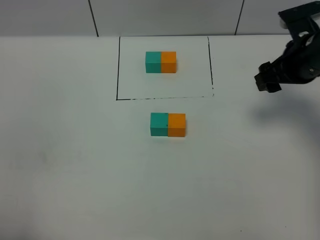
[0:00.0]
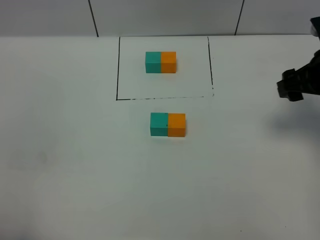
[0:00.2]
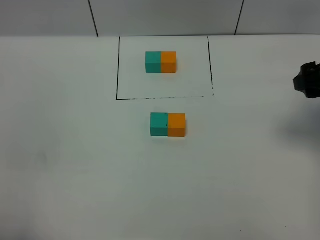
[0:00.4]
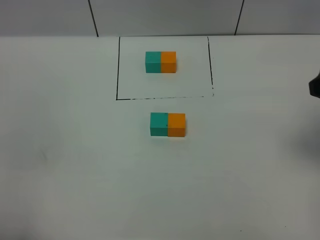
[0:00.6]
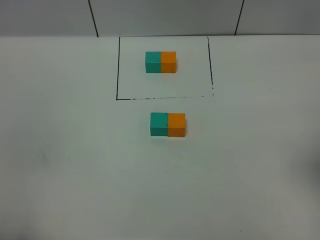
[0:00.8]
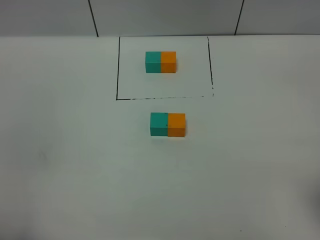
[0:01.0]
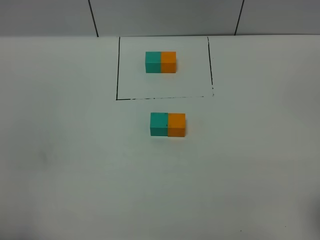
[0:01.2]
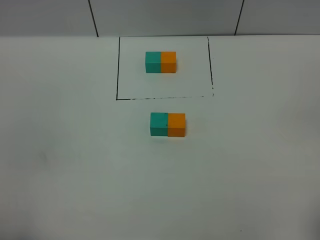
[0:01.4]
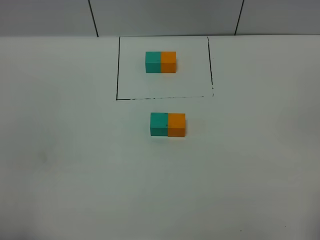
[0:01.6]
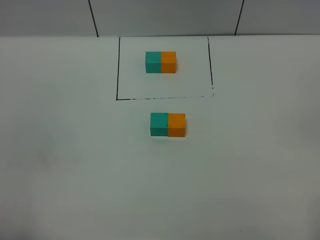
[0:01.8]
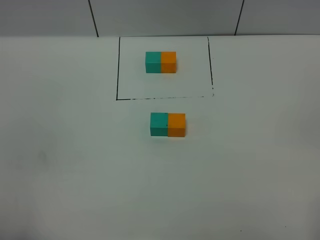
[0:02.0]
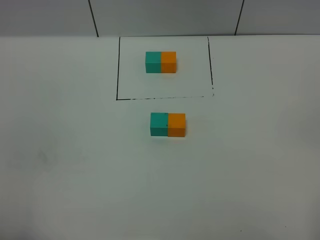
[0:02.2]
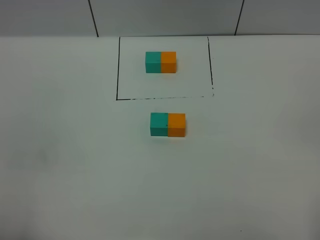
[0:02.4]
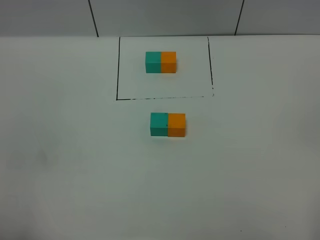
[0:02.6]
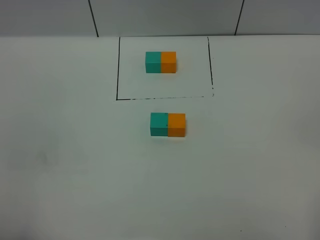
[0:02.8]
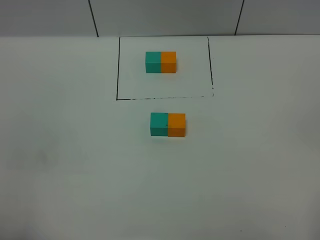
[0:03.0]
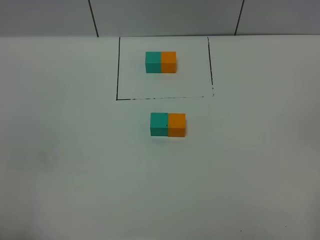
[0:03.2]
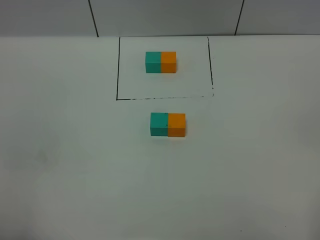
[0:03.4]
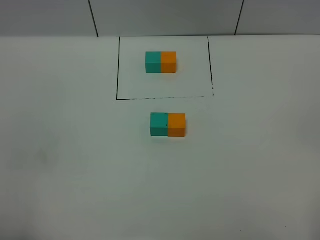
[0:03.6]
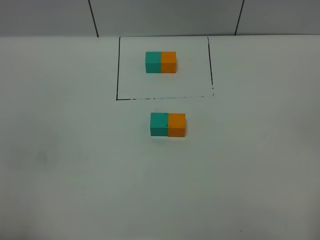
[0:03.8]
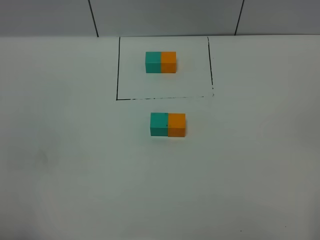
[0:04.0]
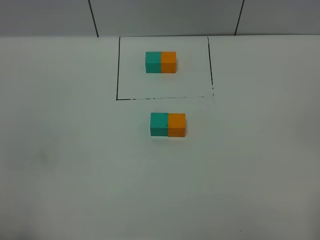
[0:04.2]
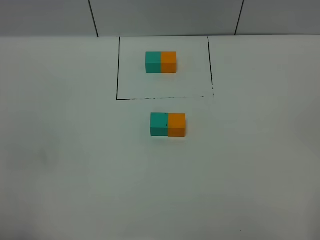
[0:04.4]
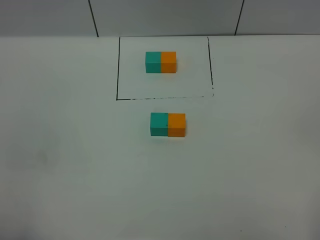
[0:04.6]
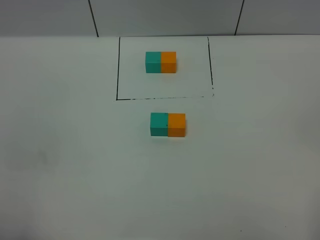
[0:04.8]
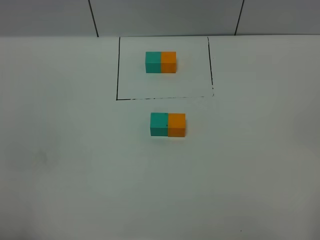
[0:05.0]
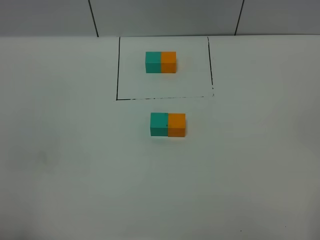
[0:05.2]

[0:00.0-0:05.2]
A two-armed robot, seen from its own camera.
Task of the whole recording: According to the building block template in front, assemble the scattered blocks together.
0:00.0 to 0:01.8: The right gripper shifts approximately 35 cm backward.
0:03.4 to 0:05.2: The two grippers keep their place.

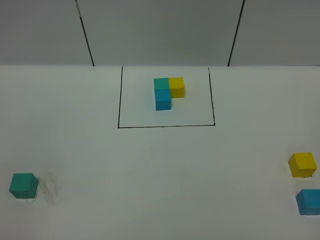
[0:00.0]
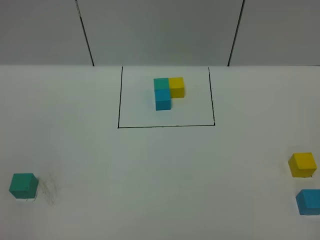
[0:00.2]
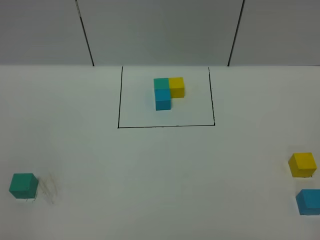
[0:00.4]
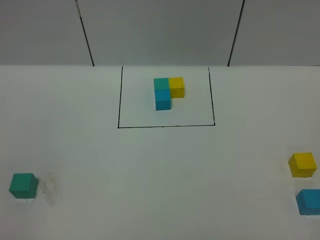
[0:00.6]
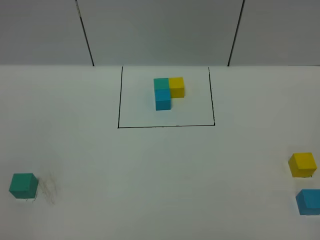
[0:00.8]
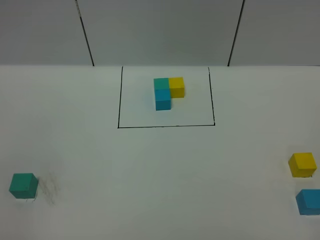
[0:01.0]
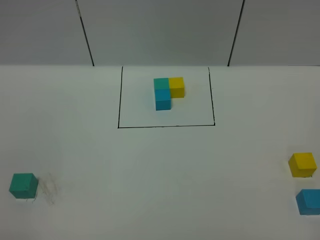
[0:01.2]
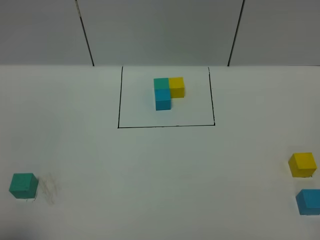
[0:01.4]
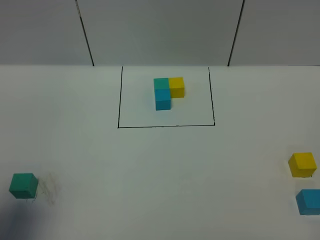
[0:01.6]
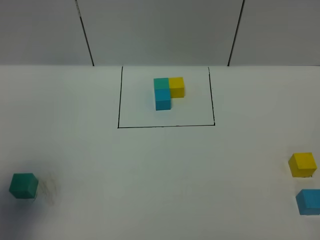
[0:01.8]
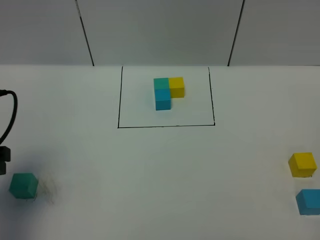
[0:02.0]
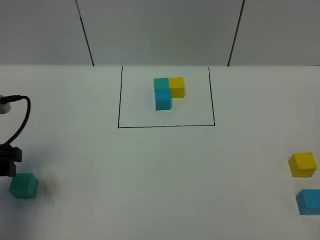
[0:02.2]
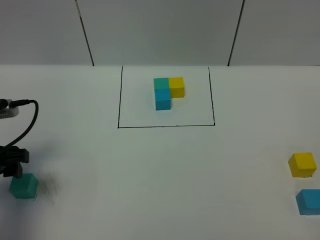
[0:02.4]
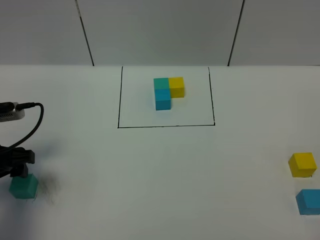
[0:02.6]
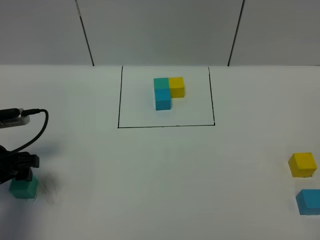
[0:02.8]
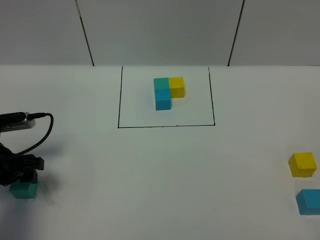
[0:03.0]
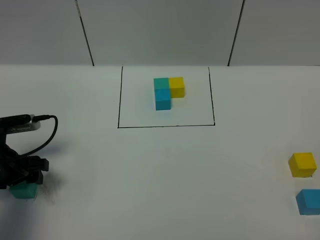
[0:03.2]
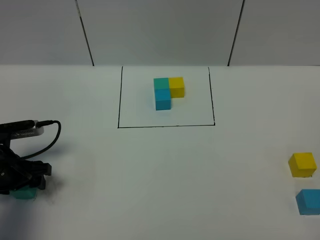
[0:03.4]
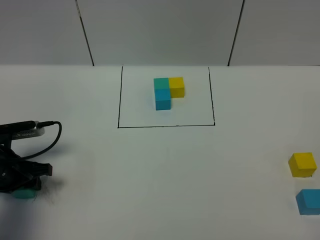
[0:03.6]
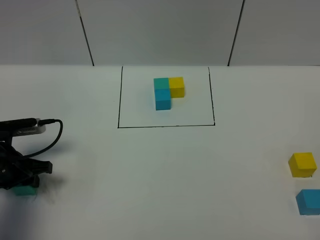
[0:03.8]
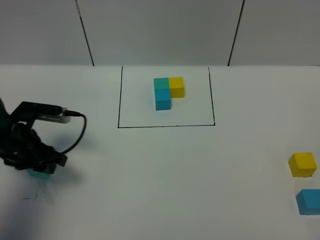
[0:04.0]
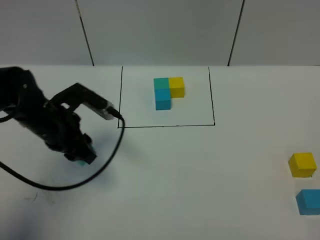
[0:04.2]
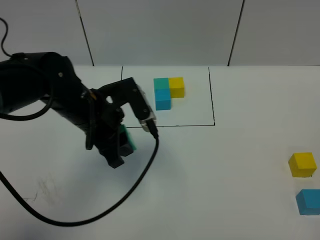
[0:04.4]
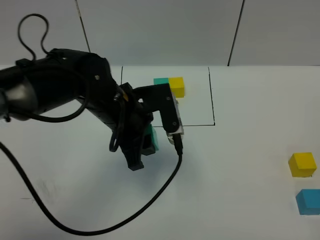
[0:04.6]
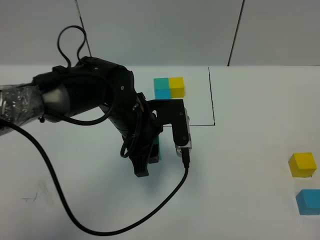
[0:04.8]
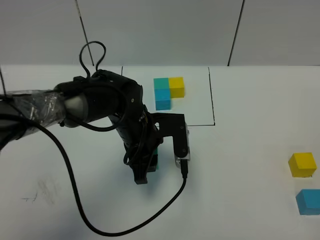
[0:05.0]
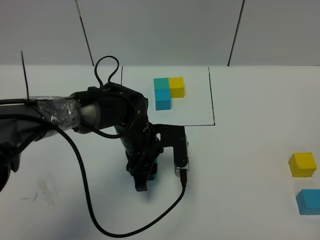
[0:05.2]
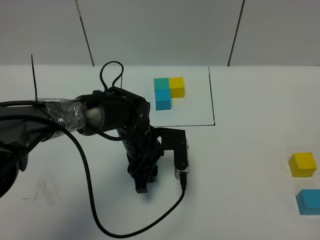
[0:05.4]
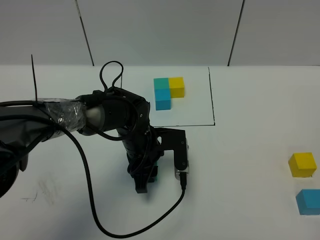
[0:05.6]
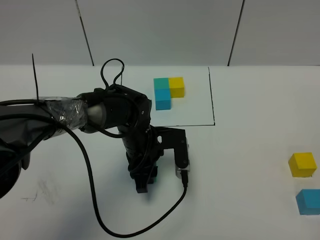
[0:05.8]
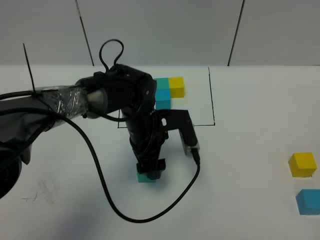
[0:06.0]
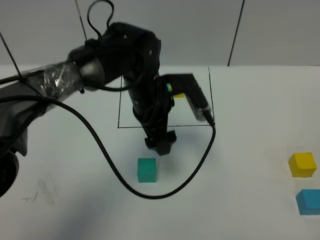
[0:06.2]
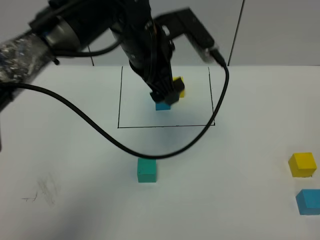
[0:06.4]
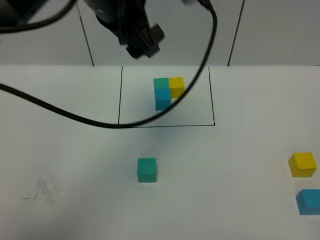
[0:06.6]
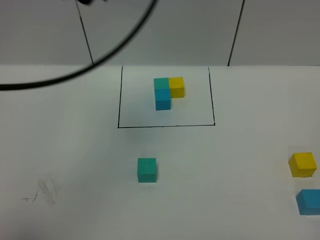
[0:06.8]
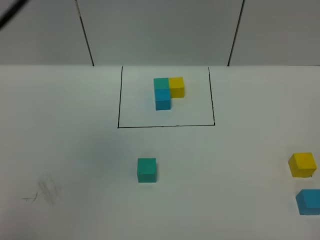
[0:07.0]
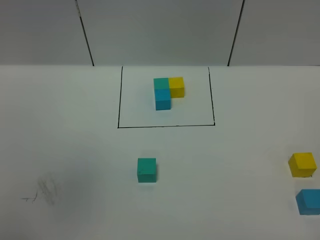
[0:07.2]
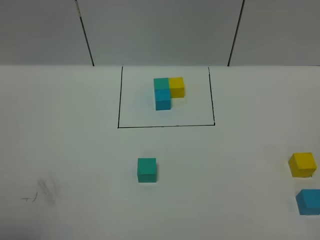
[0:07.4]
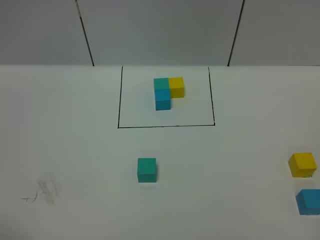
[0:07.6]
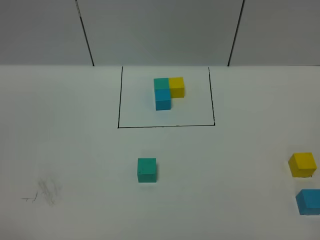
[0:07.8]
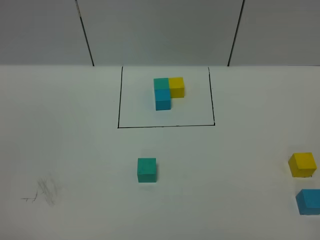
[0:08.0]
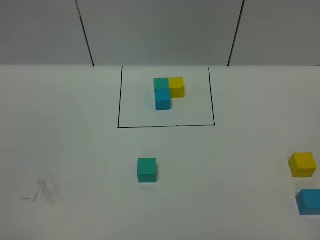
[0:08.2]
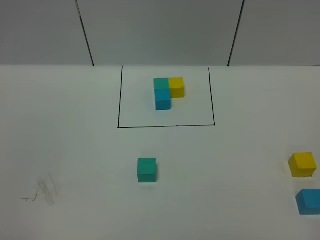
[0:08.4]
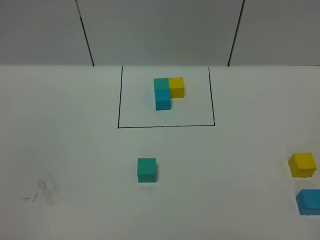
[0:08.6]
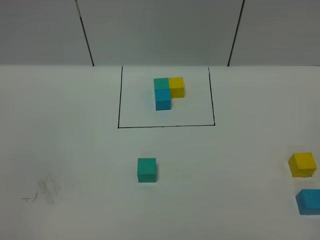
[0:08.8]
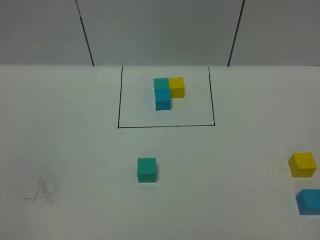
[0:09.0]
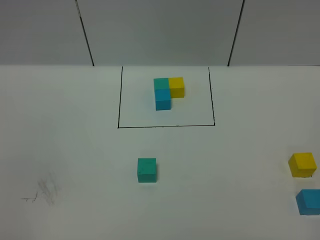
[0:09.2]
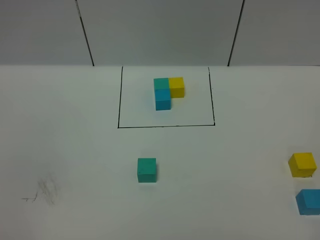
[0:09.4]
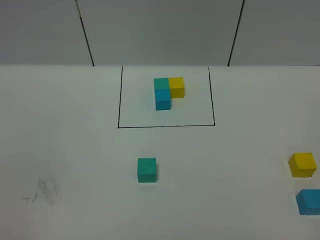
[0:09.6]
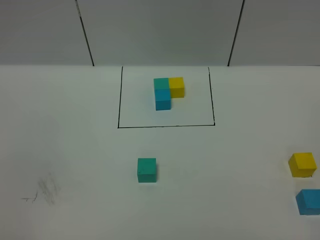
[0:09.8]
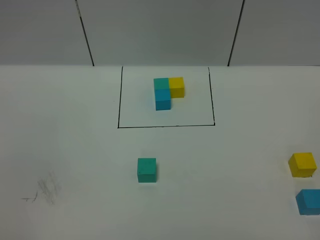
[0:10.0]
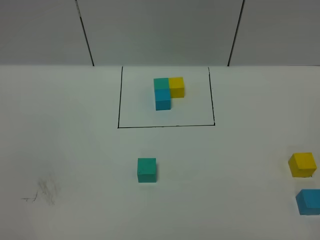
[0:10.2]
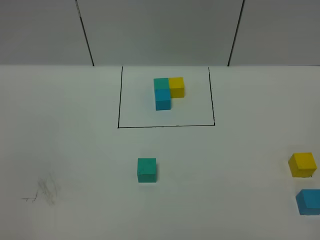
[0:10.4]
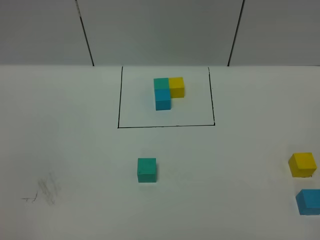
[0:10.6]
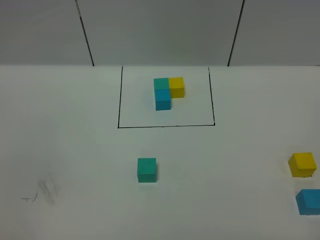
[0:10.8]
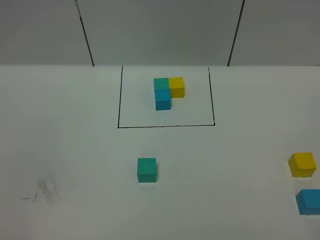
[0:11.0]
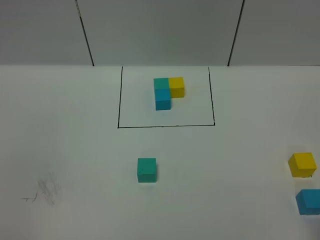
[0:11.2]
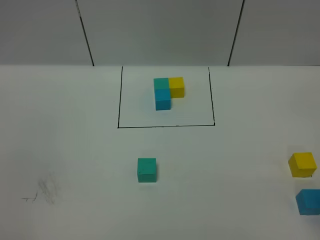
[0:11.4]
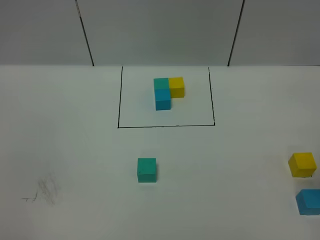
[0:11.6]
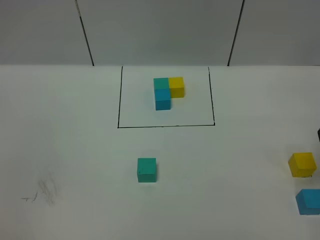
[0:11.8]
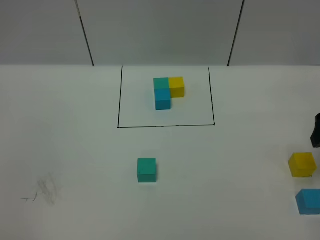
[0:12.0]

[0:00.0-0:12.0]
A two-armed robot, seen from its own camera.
Task of the whole recording: According to the building block template in front, assemble the scattered blocks together.
Step, 0:02.0 to 0:06.4: Put the green cube in the center of the table.
0:00.0 to 0:01.6: The left gripper goes approximately 15 cm forward.
0:01.6 to 0:03.0: The left gripper moves downward and forward, approximately 20 cm.
0:03.0 to 0:04.4: The left gripper shifts approximately 20 cm to the right and upward, and closes.
0:04.4 to 0:06.0: The left gripper travels to the right and downward by roughly 10 cm, and opens up.
0:06.0 to 0:07.6: The left gripper is displaced backward, upward and to the left by about 50 cm.
0:09.0 to 0:10.4: The two grippers keep their place.
0:10.4 to 0:12.0: The right gripper travels forward by approximately 30 cm, and opens its fingers.

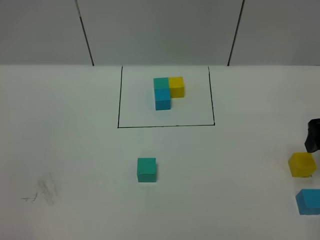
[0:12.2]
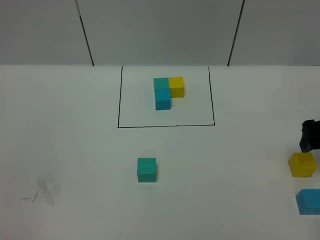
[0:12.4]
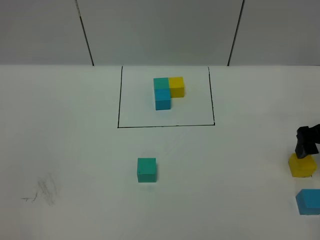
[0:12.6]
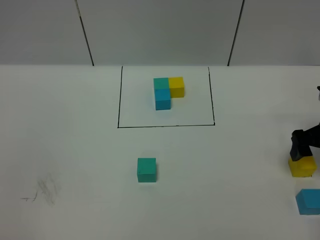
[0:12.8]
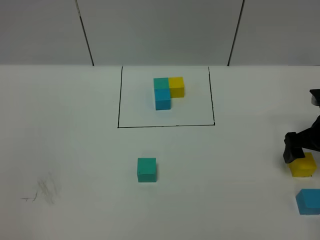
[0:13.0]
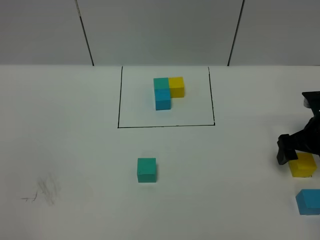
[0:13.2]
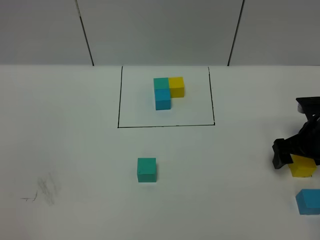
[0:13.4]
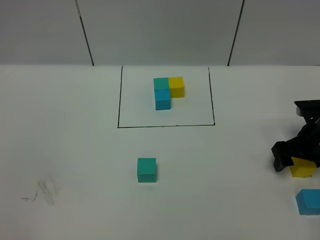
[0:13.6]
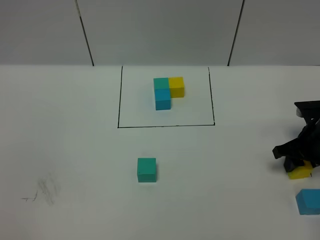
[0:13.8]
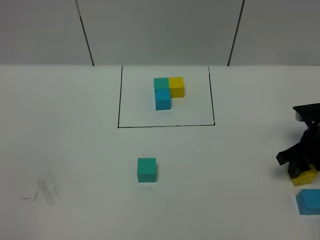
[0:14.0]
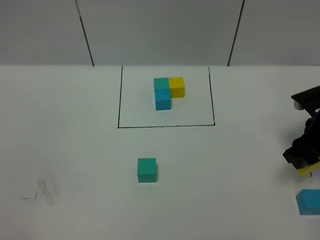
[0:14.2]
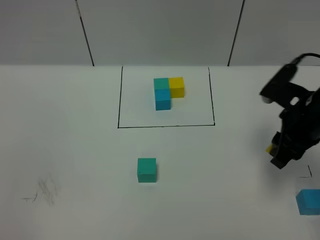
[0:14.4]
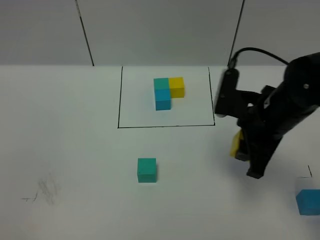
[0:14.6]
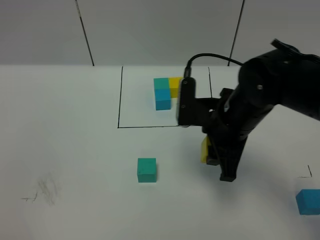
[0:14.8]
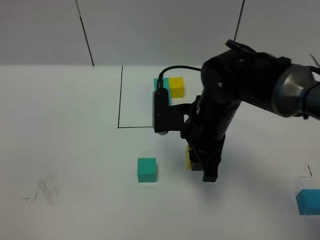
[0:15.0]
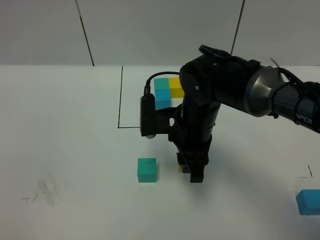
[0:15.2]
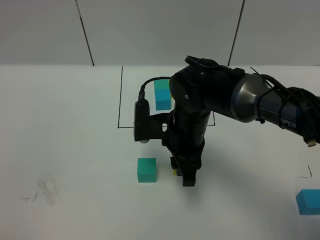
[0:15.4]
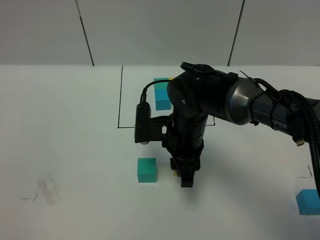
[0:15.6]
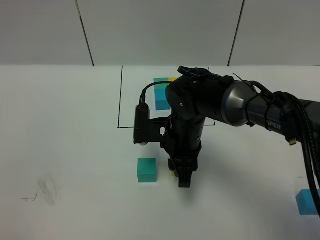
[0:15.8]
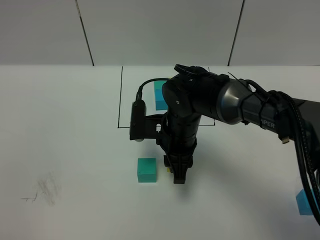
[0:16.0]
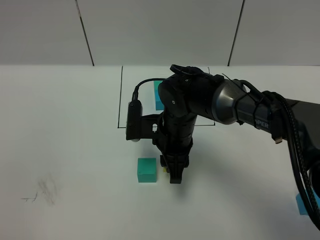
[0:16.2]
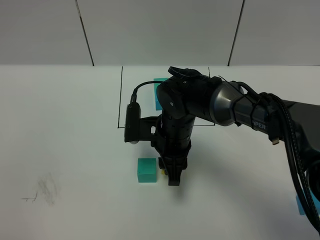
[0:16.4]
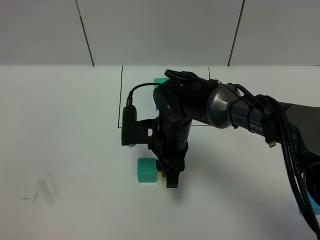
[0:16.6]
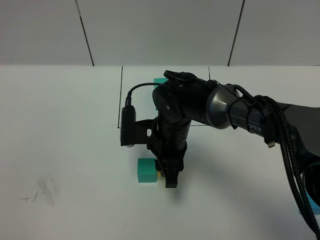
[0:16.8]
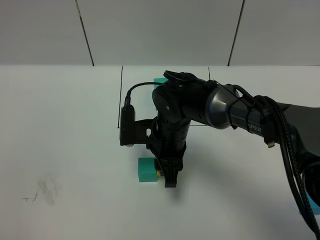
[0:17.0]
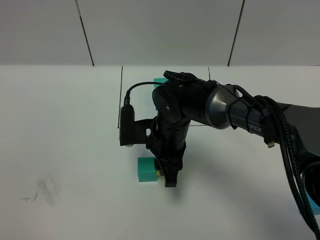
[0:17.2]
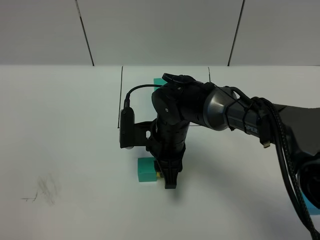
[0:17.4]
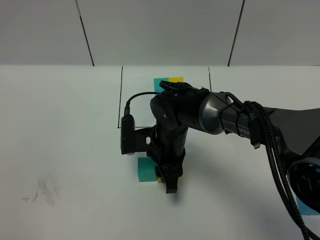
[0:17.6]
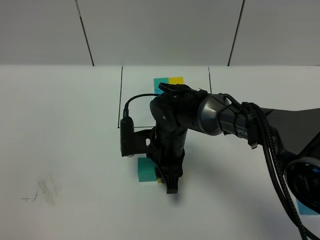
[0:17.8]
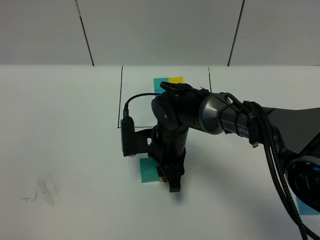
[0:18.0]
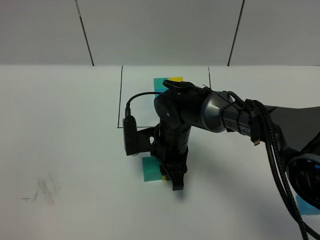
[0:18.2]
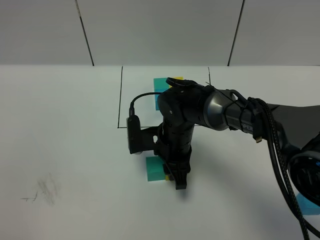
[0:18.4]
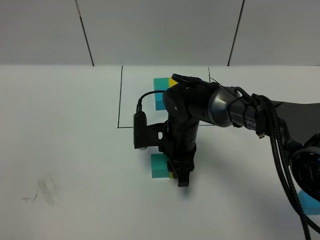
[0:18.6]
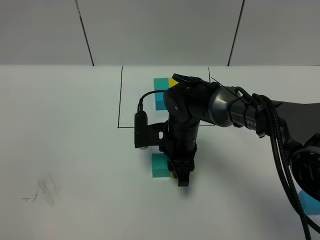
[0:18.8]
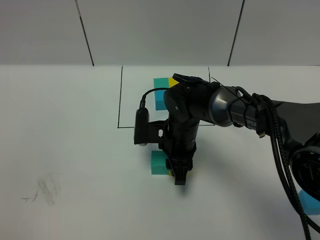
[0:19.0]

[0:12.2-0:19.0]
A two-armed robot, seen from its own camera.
Task of the whole recording: According to the building block template in front, assemble the scattered blocks together.
0:12.2 to 0:13.6: The right gripper is displaced downward by about 10 cm.
0:13.6 to 0:15.0: The right gripper is displaced to the left by about 25 cm, and closes its fingers.
0:15.0 to 0:16.2: The right gripper is displaced downward by about 5 cm.
0:16.2 to 0:19.0: The grippers make only small movements.
